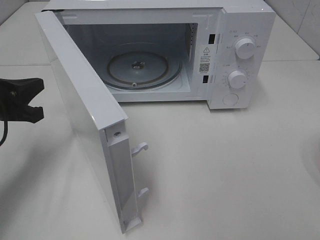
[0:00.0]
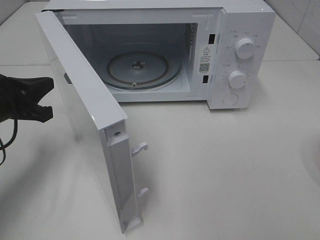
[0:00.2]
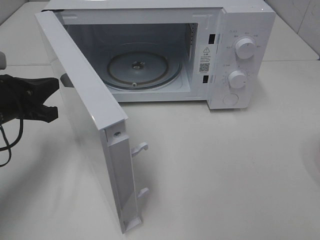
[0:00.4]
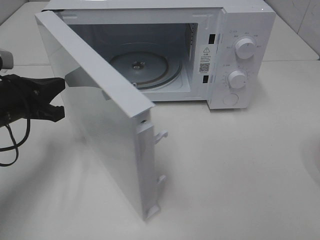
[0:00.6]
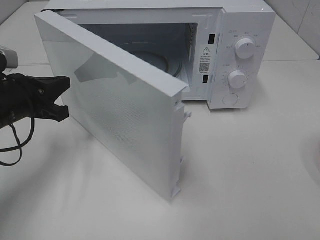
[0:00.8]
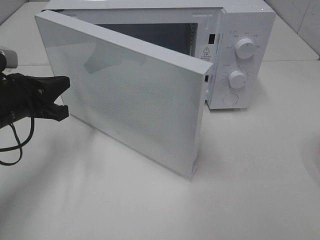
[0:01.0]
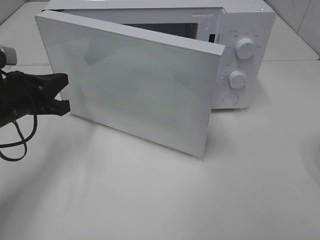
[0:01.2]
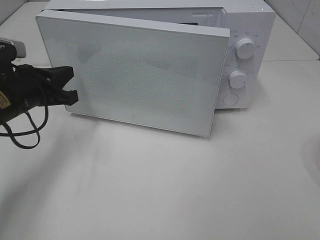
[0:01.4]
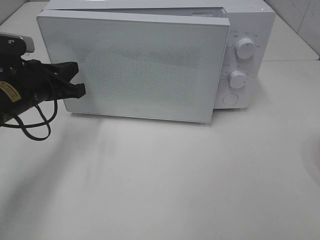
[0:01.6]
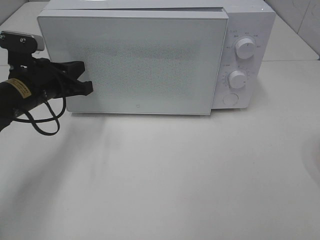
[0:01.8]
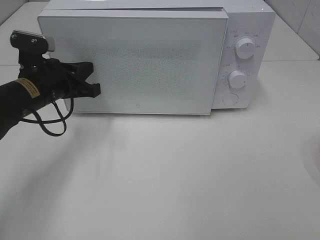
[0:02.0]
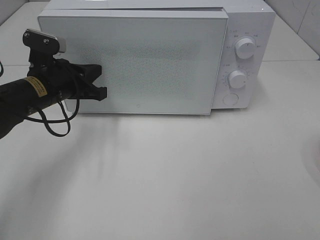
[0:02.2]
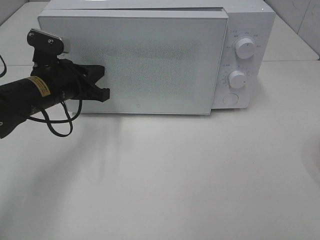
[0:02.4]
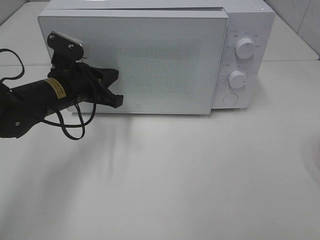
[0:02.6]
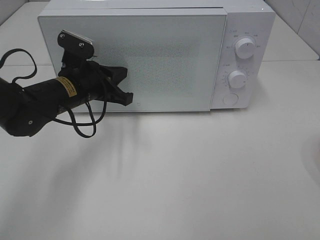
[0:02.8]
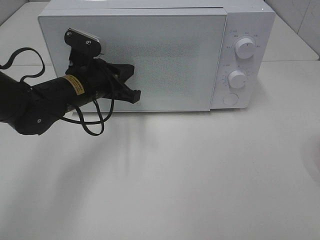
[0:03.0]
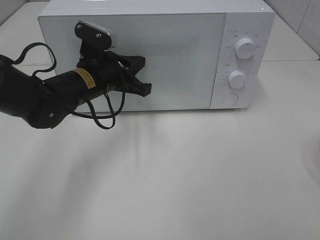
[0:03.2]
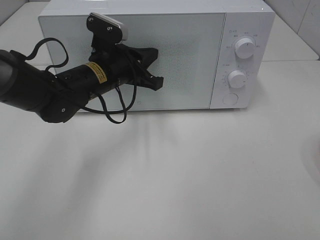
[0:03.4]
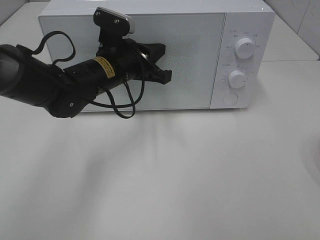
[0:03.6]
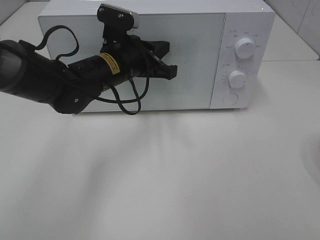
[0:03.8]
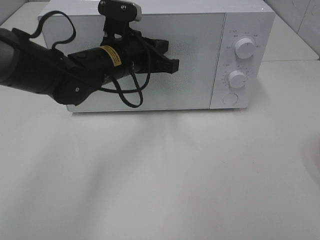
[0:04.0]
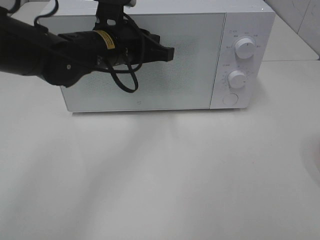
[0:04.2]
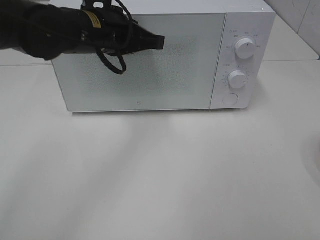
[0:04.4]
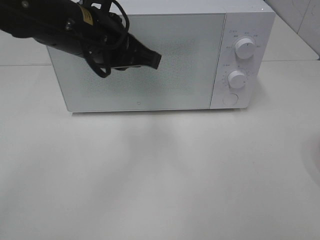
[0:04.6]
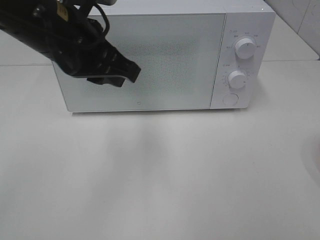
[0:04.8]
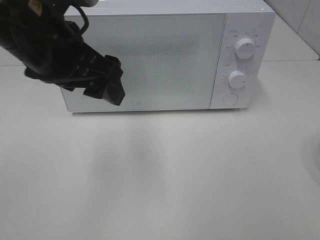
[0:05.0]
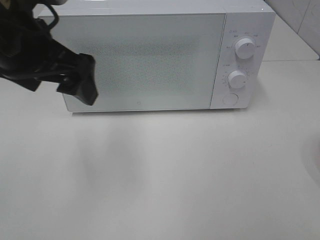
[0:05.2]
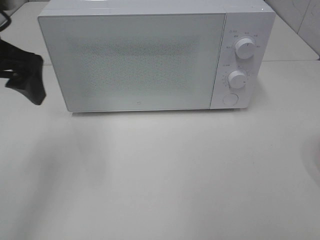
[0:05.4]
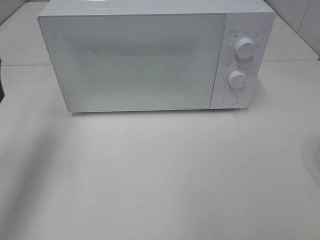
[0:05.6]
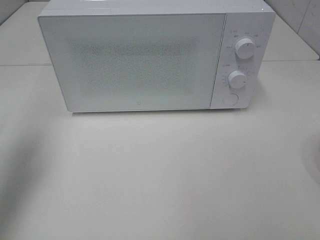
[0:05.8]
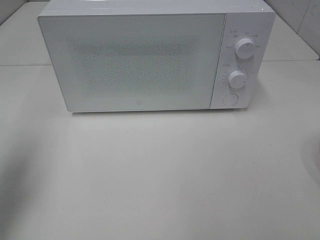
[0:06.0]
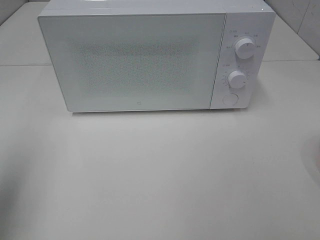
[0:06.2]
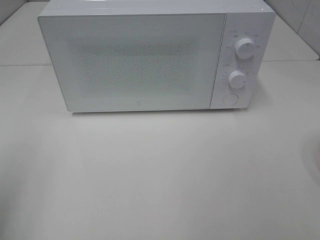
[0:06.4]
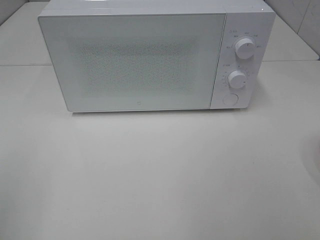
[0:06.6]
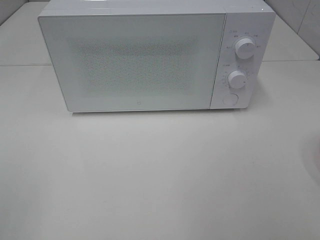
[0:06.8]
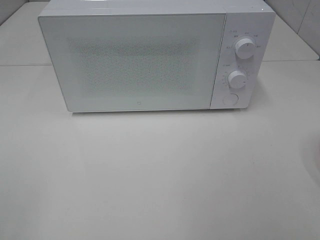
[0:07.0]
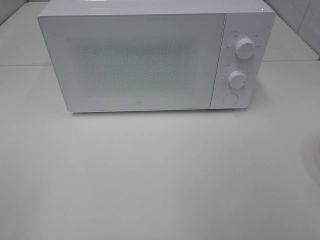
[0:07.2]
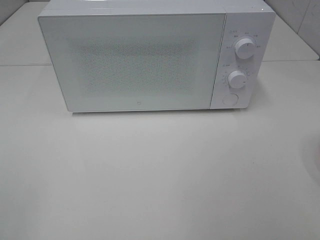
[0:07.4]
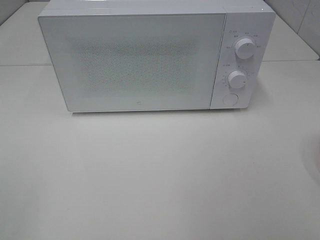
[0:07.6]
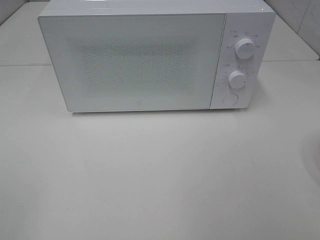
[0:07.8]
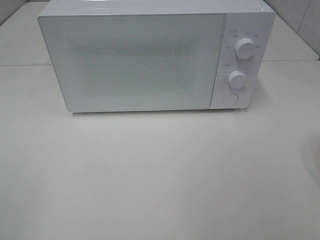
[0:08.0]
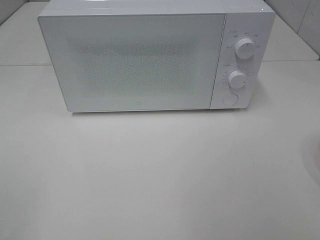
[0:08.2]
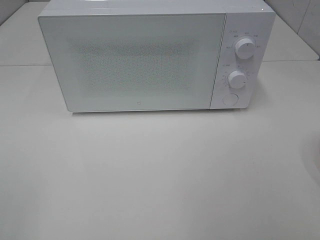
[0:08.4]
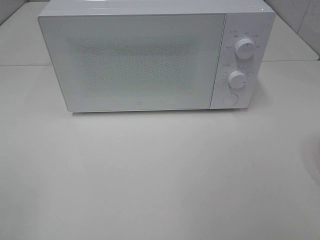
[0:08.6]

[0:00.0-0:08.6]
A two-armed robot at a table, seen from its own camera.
Task of the whole recording: Heat the burger.
Step, 0:00.0 to 0:04.0: Left hand: close the microwave door.
0:00.0 to 0:01.4: The left gripper ends up approximately 5 cm from where it was.
0:01.4 to 0:02.8: The left gripper shifts some 10 cm to the right.
0:02.8 to 0:04.4: The left gripper moves upward and to the right, about 10 cm.
0:04.4 to 0:05.8: The left gripper shifts approximately 25 cm to the left, and opens its fingers.
0:05.8 to 0:07.2: The left gripper heads backward, covering approximately 25 cm.
0:07.2 to 0:08.6: Both grippers stay put.

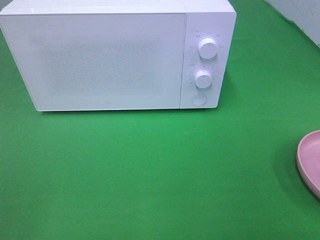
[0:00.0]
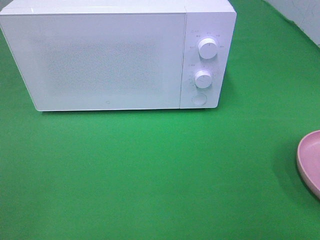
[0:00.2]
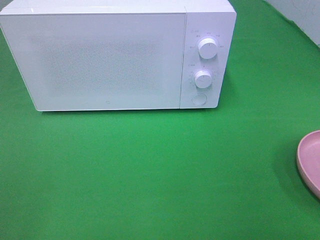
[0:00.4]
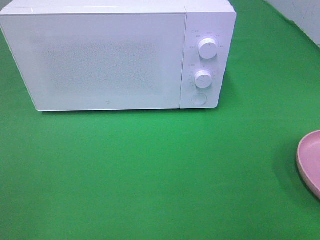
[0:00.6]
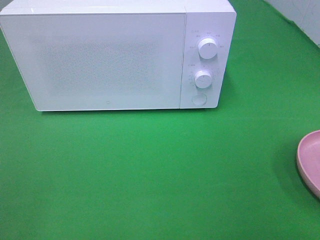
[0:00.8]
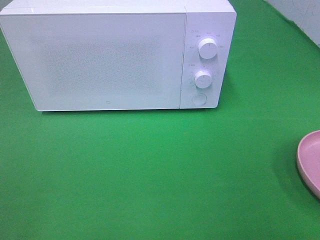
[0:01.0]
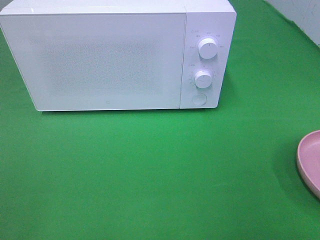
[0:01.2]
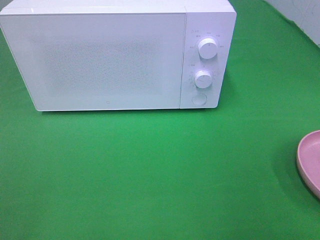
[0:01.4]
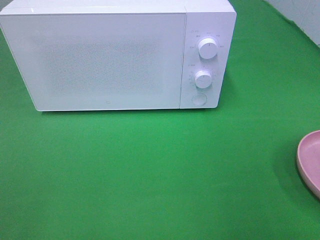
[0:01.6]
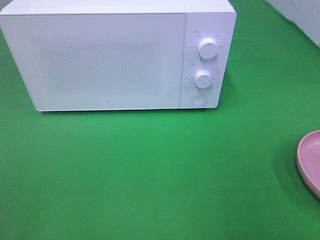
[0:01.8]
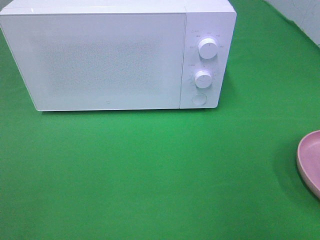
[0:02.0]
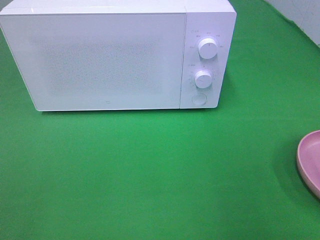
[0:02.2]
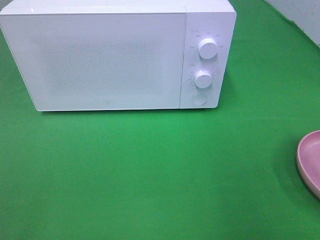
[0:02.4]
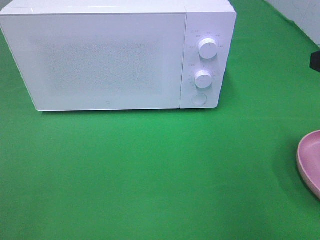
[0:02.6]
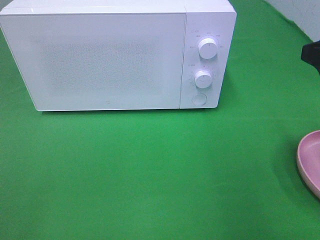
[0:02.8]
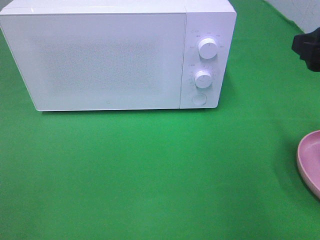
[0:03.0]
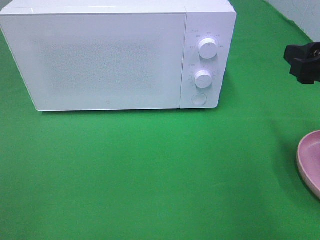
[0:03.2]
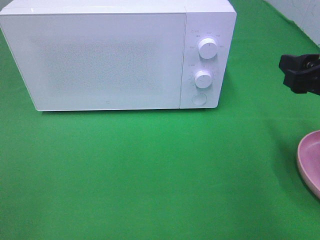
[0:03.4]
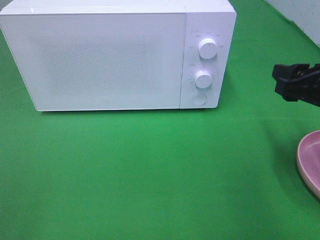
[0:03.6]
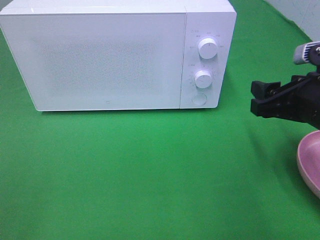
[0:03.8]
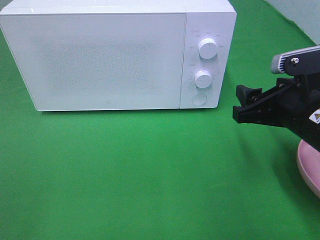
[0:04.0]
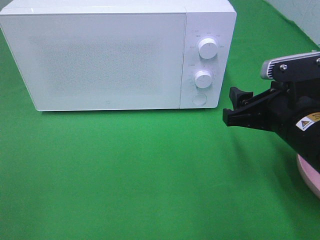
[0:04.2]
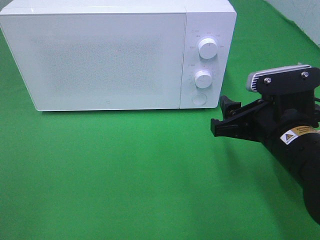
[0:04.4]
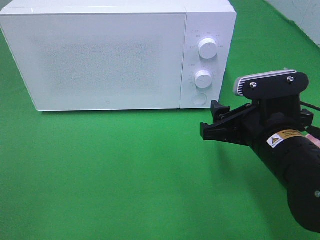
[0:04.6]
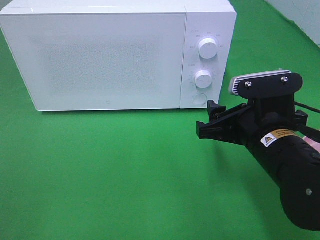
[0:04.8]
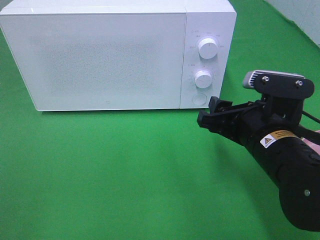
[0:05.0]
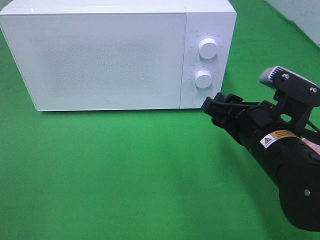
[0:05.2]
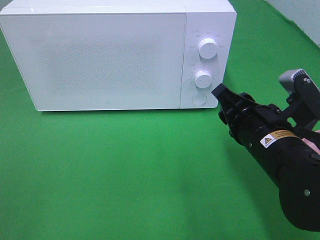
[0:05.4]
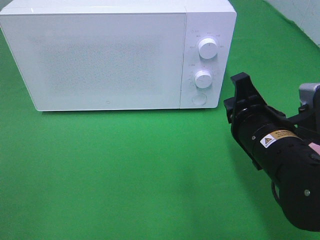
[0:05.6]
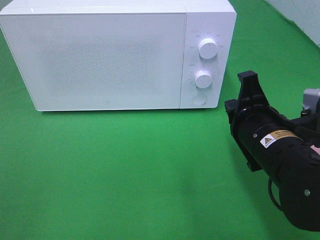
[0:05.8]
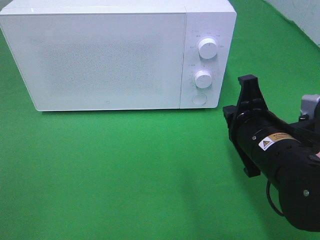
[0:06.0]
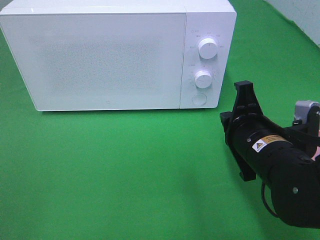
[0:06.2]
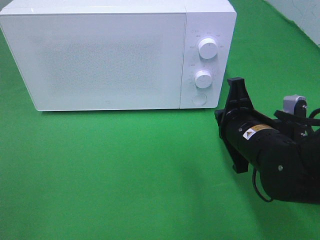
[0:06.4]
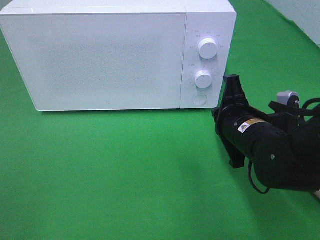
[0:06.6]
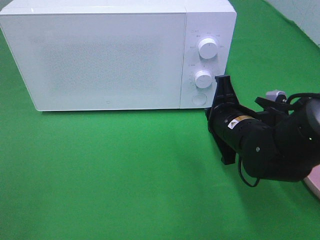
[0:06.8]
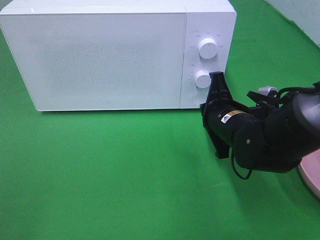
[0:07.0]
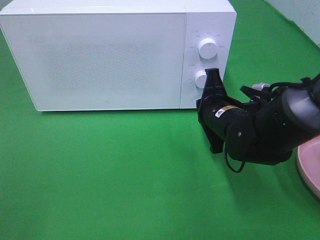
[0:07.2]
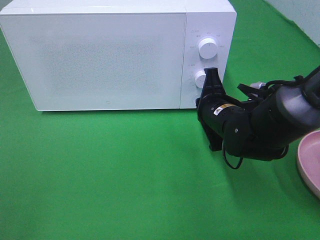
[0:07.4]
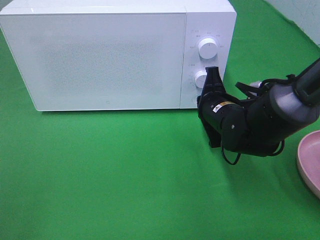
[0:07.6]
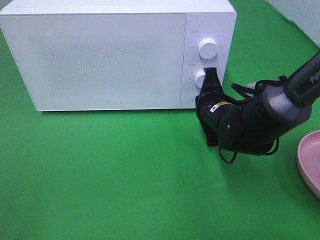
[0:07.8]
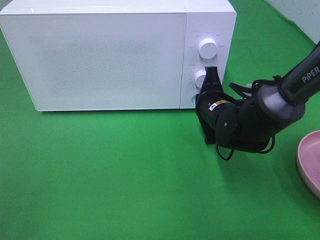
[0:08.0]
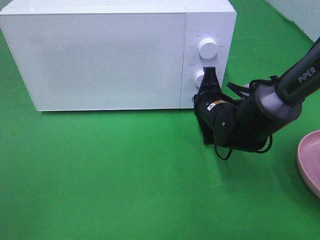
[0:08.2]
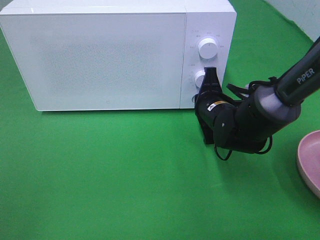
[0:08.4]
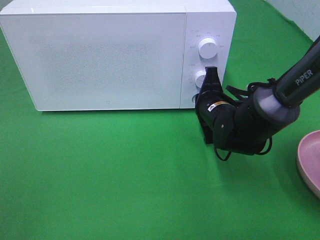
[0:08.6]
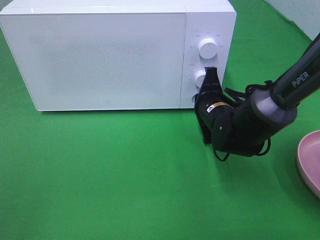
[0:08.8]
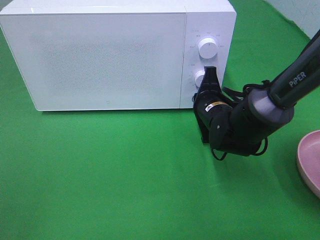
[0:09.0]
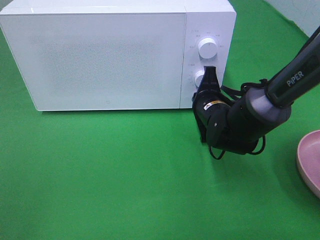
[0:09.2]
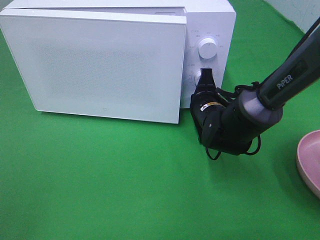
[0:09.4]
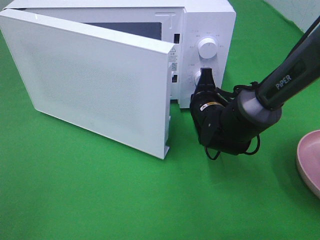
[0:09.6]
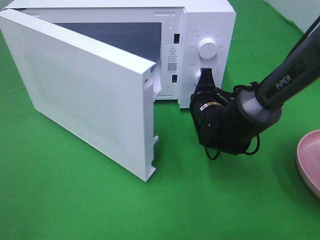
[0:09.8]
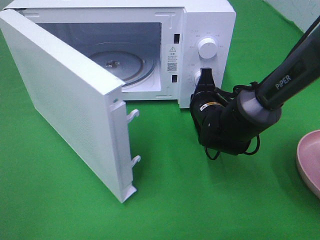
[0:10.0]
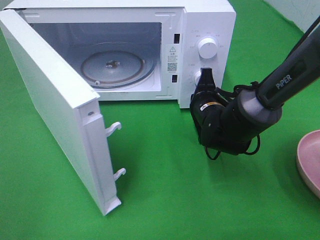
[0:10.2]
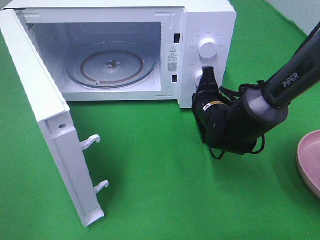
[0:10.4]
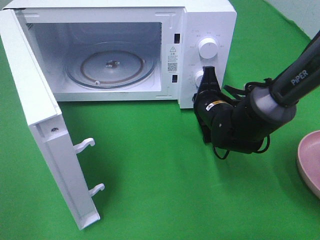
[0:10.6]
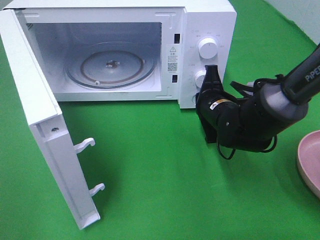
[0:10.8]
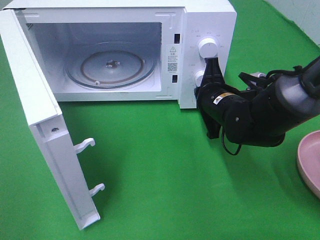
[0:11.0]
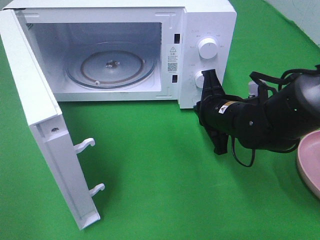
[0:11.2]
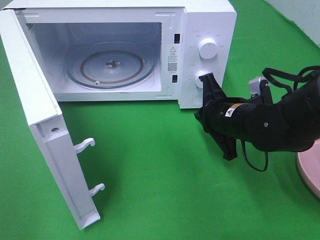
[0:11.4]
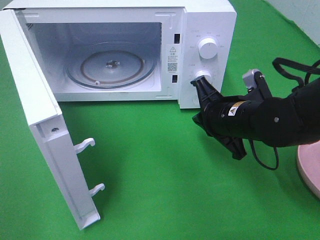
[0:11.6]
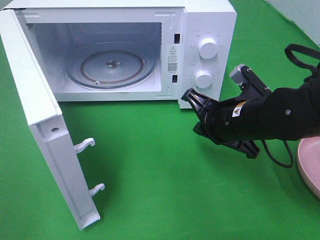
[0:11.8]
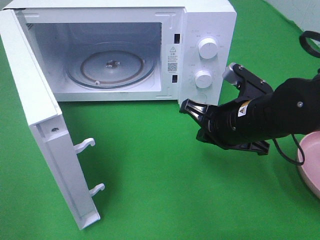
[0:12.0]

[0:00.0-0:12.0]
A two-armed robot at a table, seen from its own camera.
Task of the whole recording: Heat the burger.
Step, 0:00.0 to 0:11.4: Right hand: press the switch.
0:01.6 to 0:03.0: The right gripper moves forward, approximately 15 cm.
0:03.0 to 0:04.4: The right gripper travels downward and to the left by approximately 15 cm.
0:04.4 to 0:06.0: The right gripper closes.
0:06.0 to 0:07.6: The right gripper moves forward and downward, about 15 cm.
0:07.6 to 0:09.0: The grippers stay close to where they were, moving slightly.
0:10.4 to 0:12.0: The right gripper moves backward and upward, roughly 10 cm.

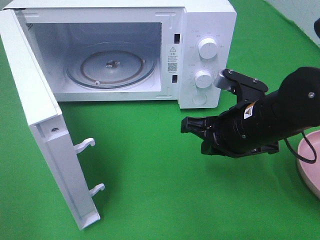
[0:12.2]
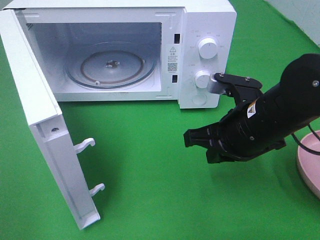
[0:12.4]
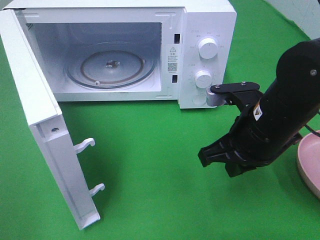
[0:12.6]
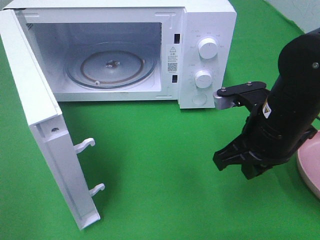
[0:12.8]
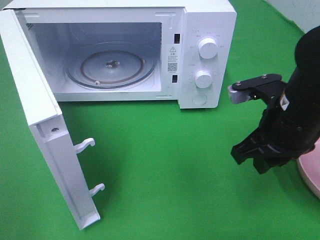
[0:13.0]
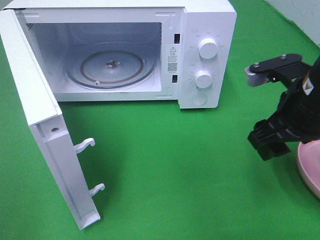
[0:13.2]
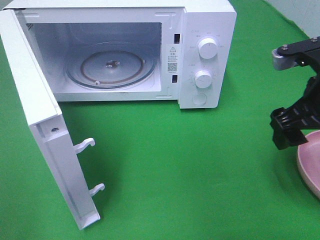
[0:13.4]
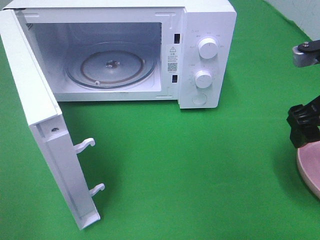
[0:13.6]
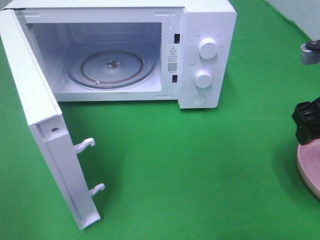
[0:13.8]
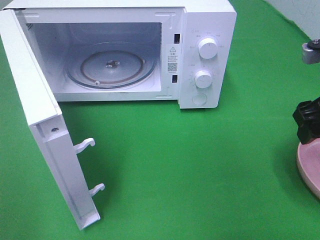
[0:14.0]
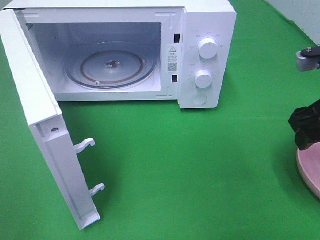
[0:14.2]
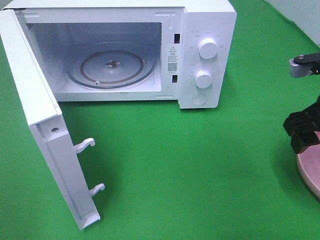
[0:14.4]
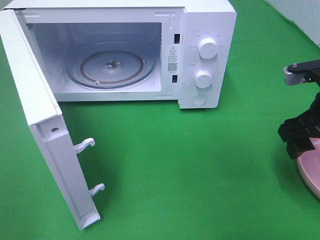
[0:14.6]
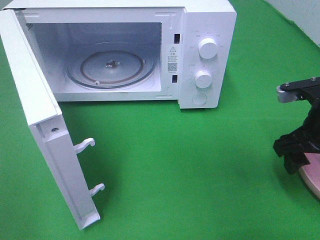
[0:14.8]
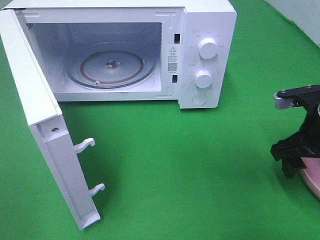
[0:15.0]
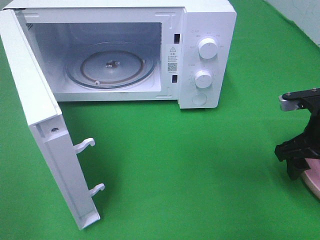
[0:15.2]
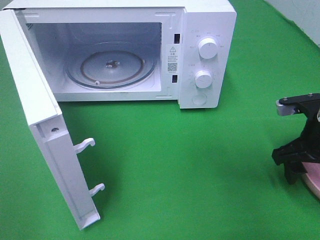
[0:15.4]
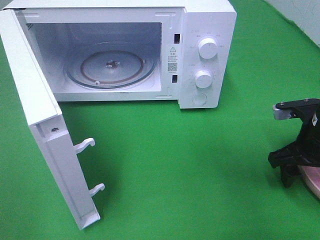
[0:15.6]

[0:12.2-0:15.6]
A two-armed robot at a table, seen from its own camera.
Task of the whole recording: Heat the burger.
0:12.2 to 0:13.8: The right gripper is displaced to the right and upward by about 15 cm, and opens.
0:13.8 to 0:15.6: The right gripper shifts approximately 10 cm downward.
